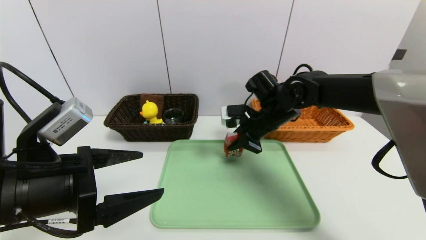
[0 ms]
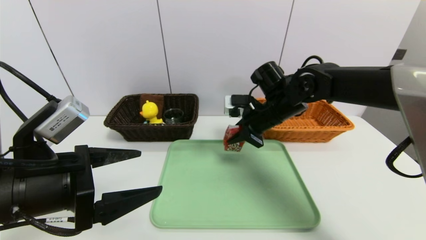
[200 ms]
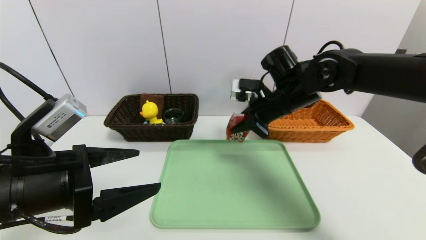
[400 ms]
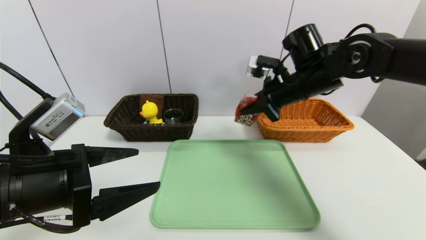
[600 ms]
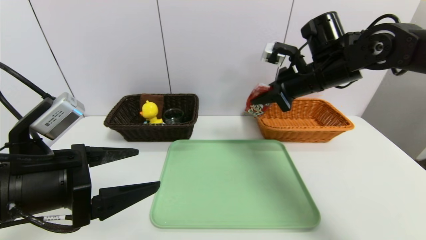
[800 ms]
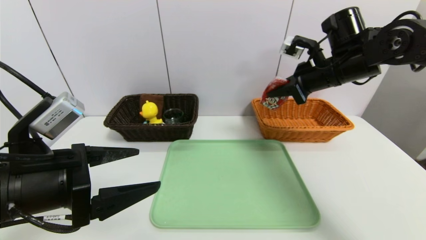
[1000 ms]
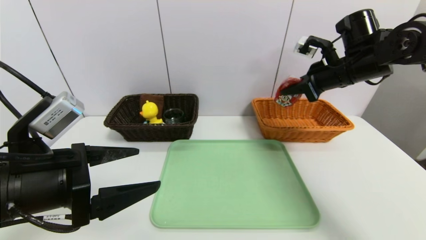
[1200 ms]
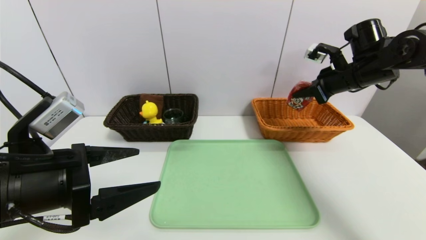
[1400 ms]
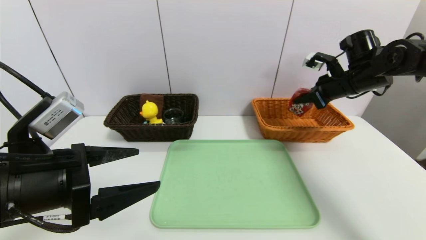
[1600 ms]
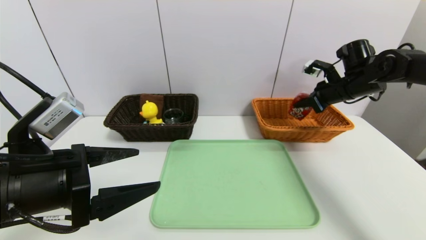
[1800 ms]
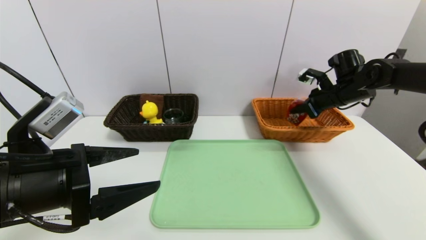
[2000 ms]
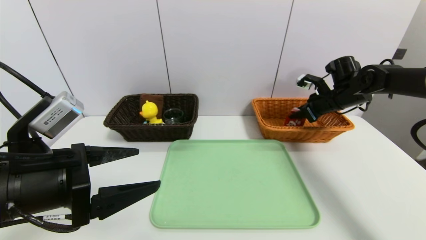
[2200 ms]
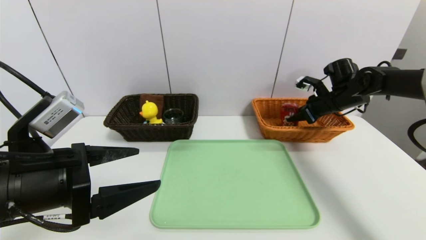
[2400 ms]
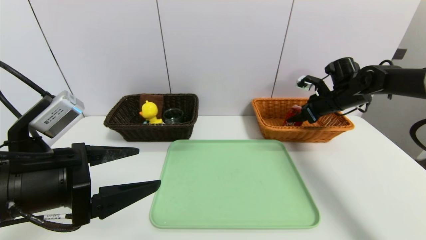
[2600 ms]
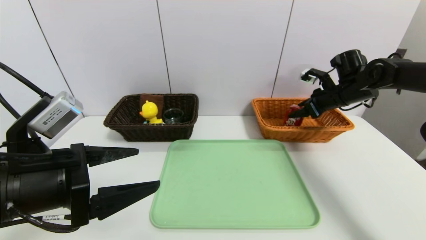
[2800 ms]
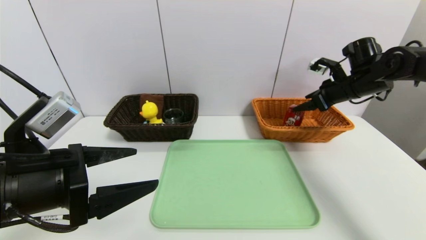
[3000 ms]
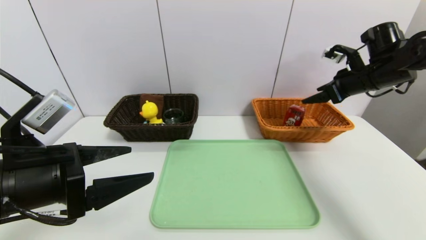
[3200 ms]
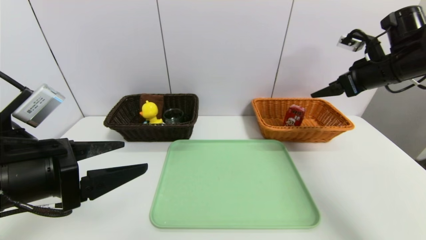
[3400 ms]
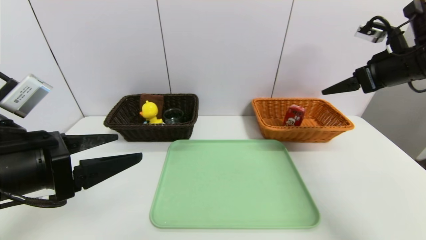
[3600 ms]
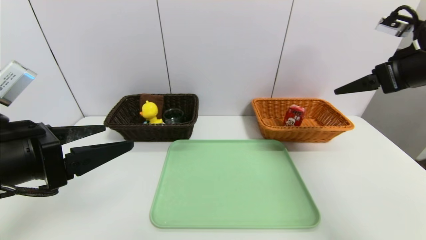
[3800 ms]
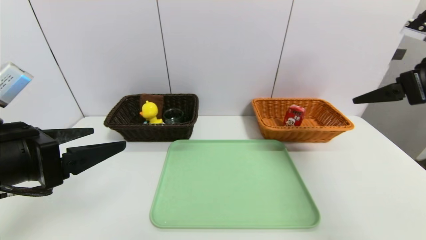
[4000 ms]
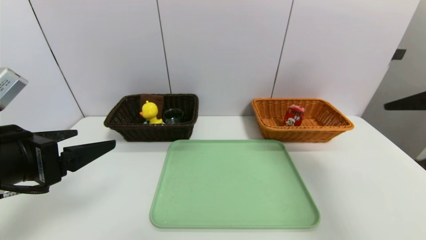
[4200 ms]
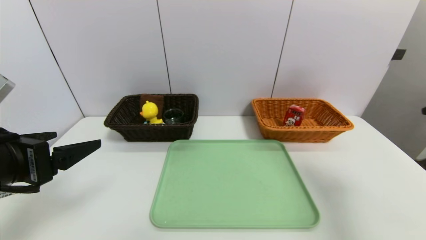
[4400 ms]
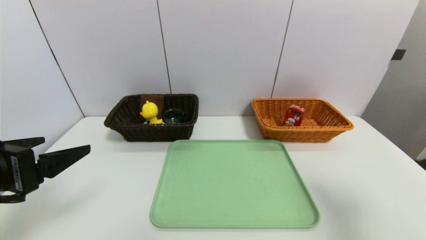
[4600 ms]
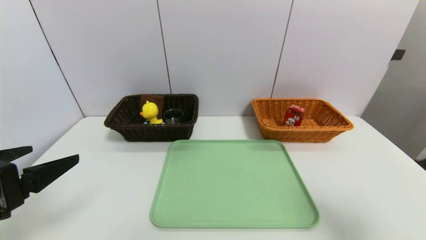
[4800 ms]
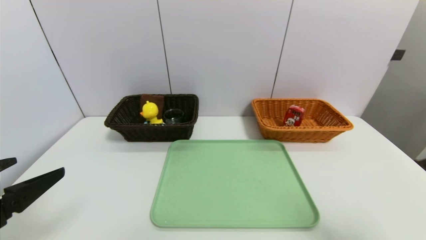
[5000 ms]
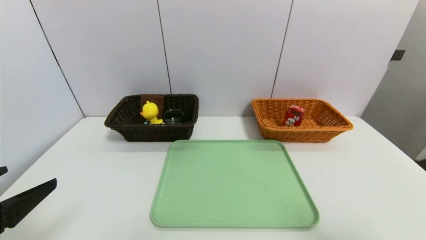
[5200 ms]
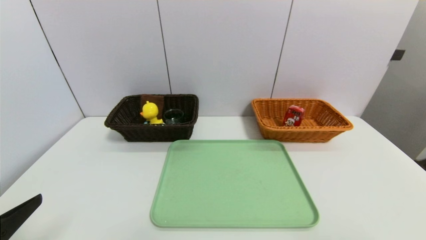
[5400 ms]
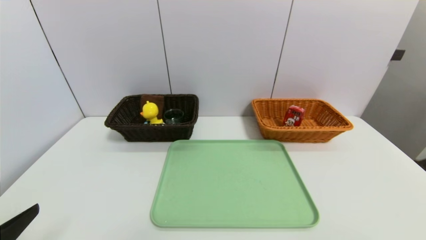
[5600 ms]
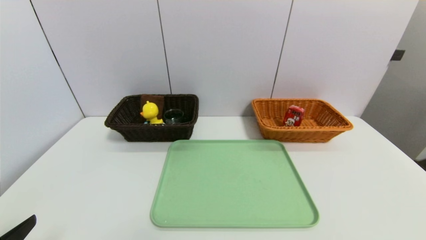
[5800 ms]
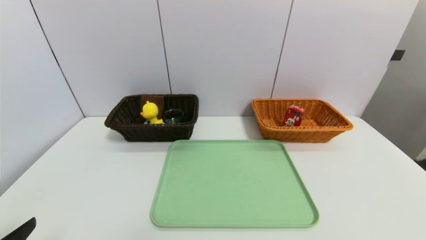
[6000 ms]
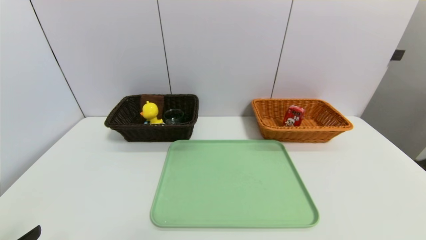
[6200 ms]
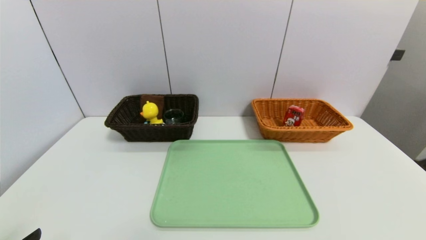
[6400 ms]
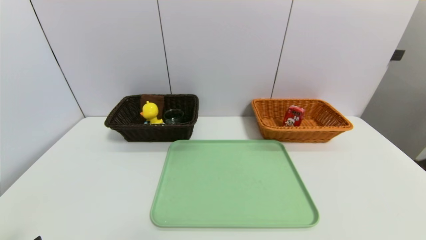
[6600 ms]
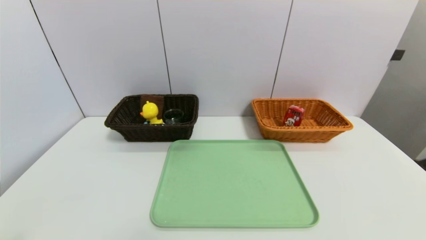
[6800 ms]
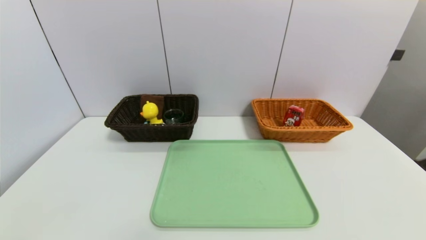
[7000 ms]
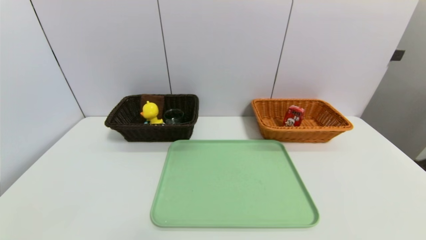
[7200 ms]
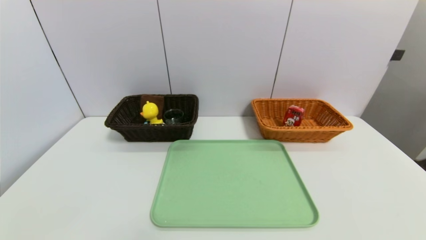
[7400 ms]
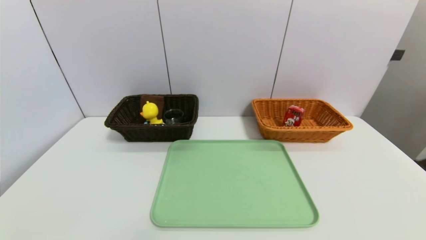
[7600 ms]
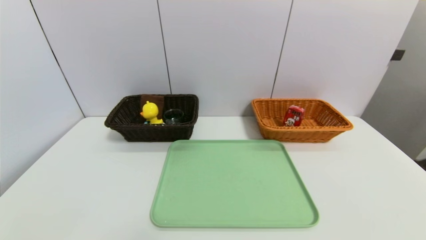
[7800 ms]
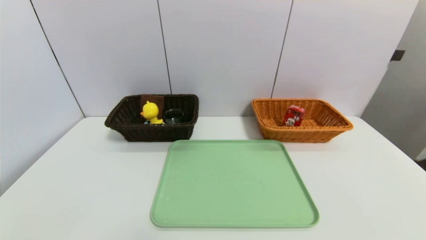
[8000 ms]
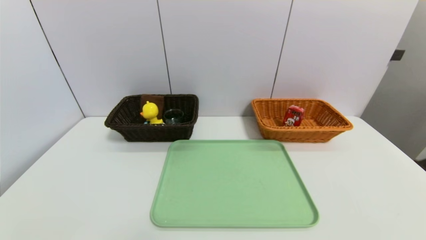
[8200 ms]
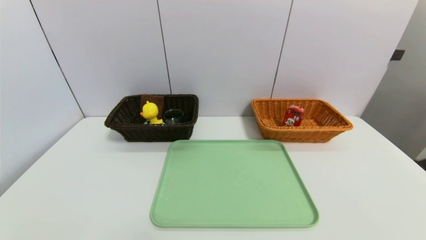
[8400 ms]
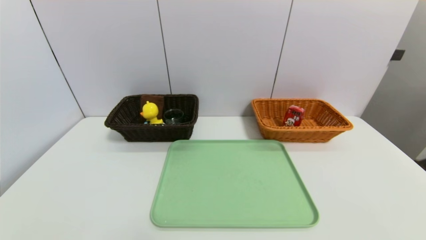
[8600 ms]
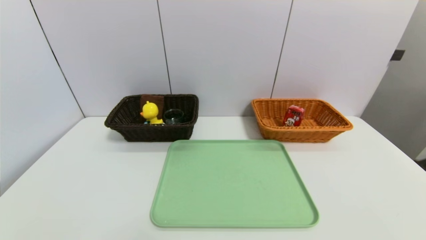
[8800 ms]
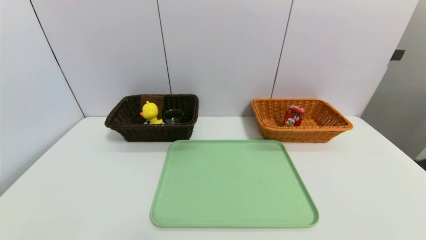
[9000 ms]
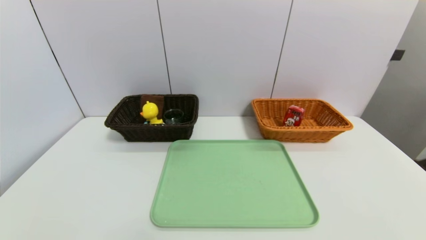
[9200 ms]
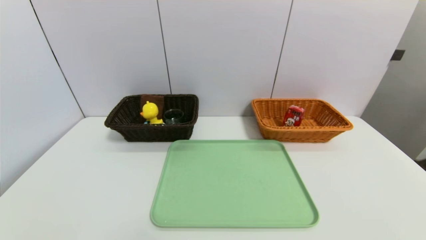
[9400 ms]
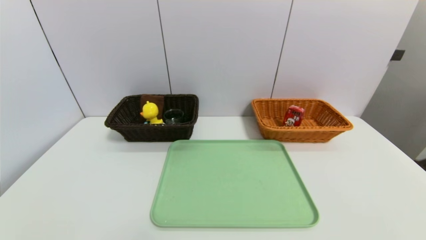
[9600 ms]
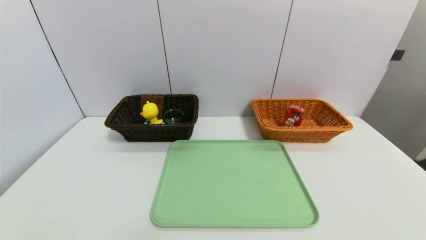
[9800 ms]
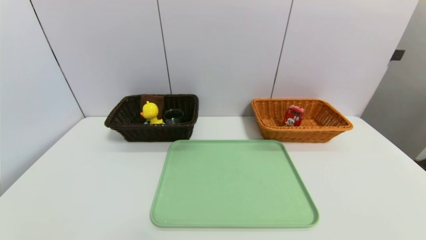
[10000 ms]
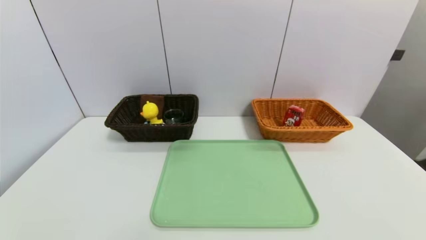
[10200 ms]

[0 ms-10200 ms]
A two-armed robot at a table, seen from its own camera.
Task of the whole recording: place the food in the right basket with the right gripper, and place the non food items in the left basket with the left gripper.
Step, 0 ms to 3000 ms: Grasp the milk and put it in the right basket.
0 ms to 1400 ms: The right gripper travels to the right and upward by approximately 20 cm.
1400 ms to 3000 ms: The right gripper opens.
3000 ms to 4400 ms: The right gripper is displaced backward by approximately 25 cm.
4400 ms to 5800 ms: The right gripper shifts roughly 20 cm backward and downward. The left gripper shifts approximately 15 cm backward and downward.

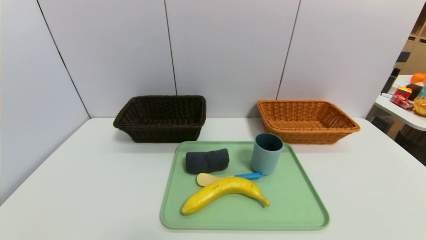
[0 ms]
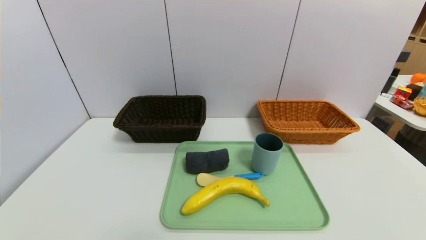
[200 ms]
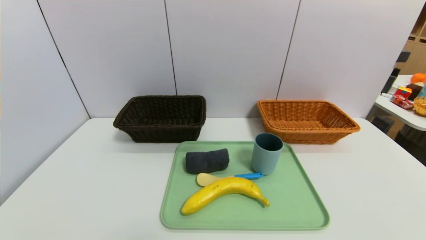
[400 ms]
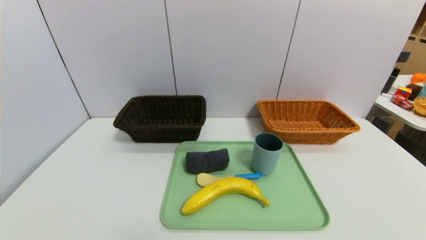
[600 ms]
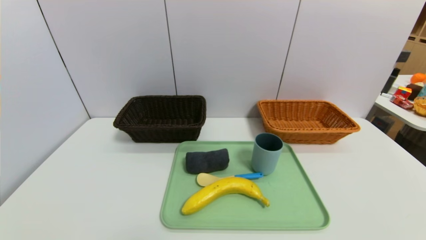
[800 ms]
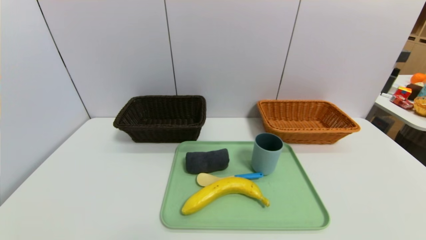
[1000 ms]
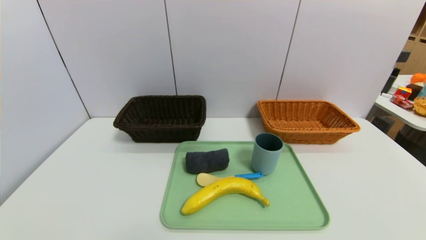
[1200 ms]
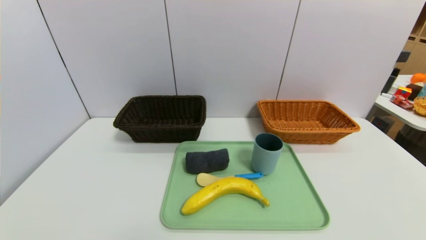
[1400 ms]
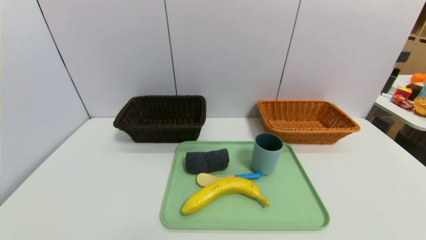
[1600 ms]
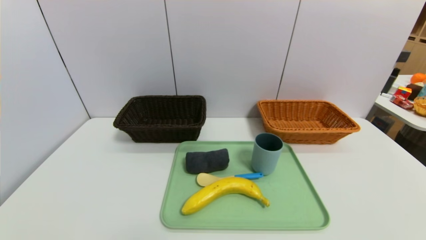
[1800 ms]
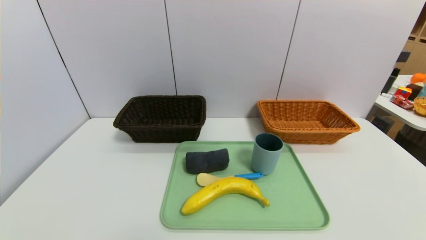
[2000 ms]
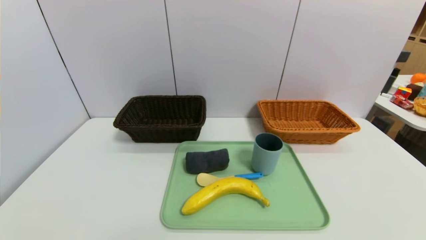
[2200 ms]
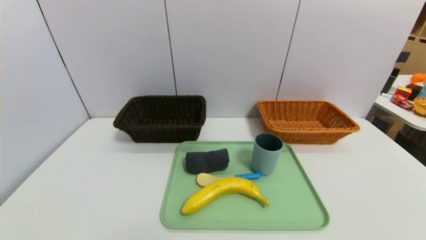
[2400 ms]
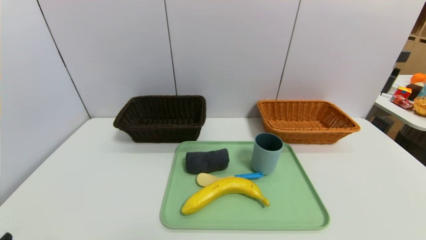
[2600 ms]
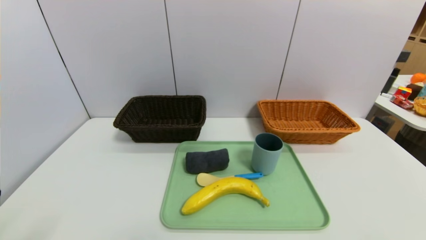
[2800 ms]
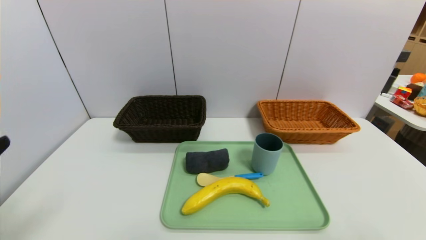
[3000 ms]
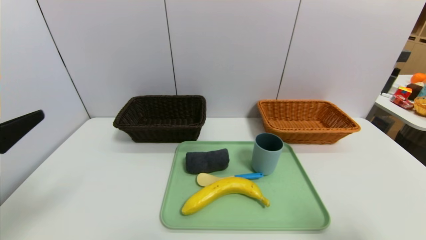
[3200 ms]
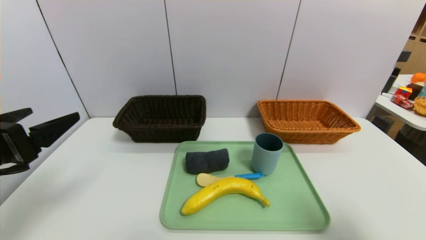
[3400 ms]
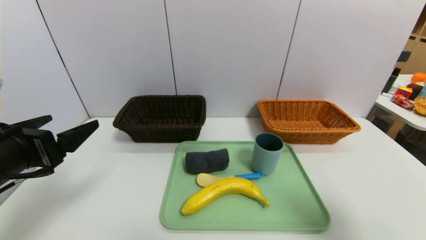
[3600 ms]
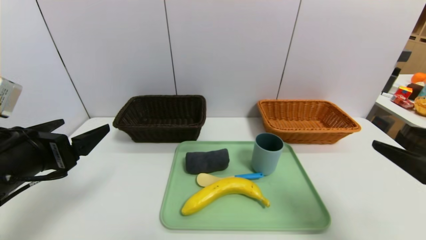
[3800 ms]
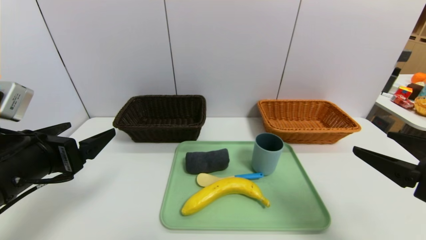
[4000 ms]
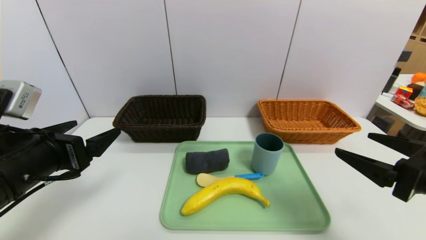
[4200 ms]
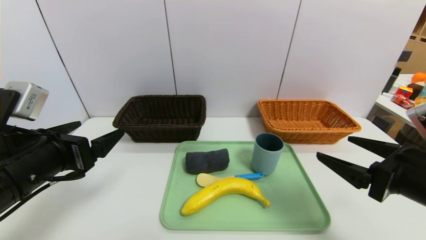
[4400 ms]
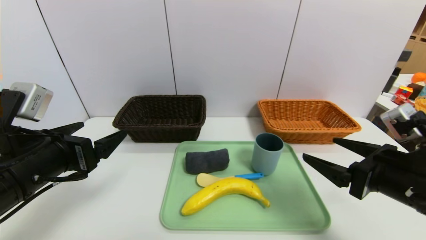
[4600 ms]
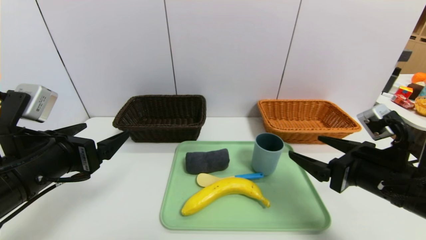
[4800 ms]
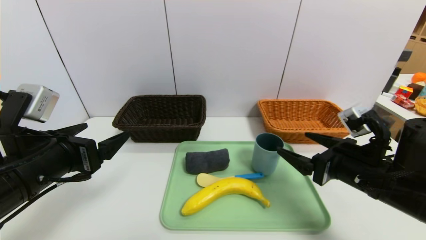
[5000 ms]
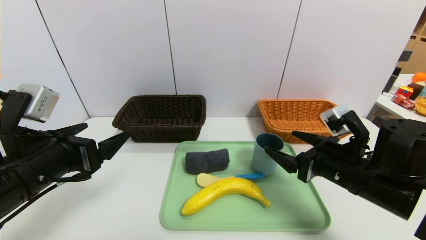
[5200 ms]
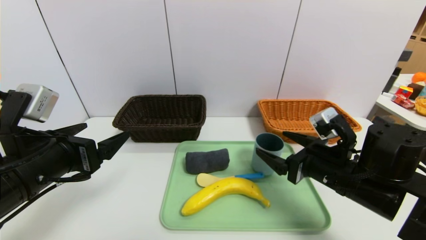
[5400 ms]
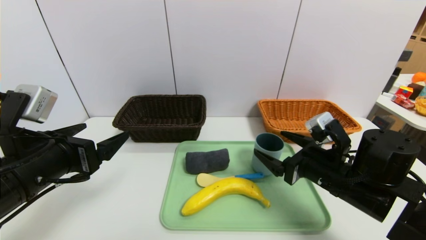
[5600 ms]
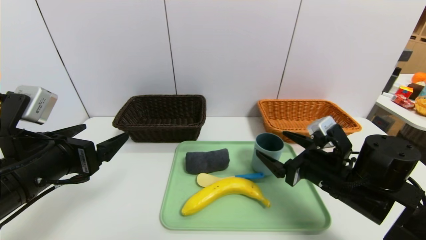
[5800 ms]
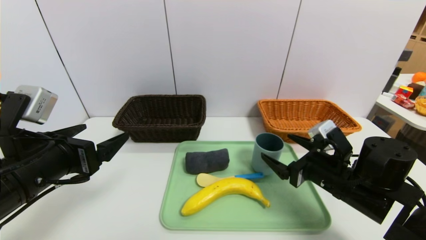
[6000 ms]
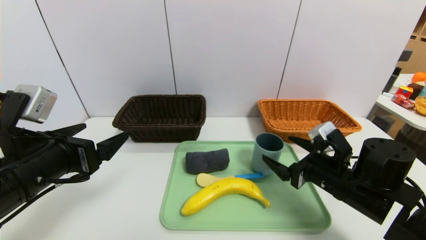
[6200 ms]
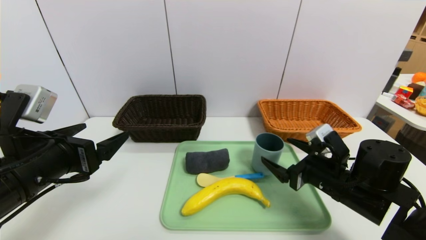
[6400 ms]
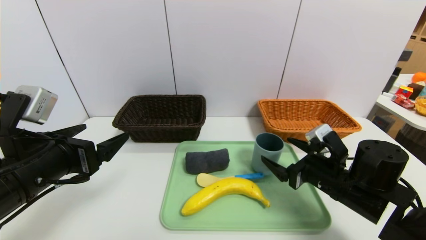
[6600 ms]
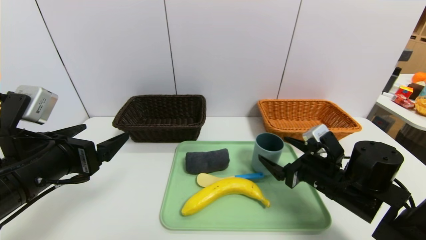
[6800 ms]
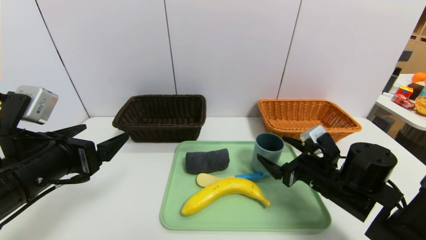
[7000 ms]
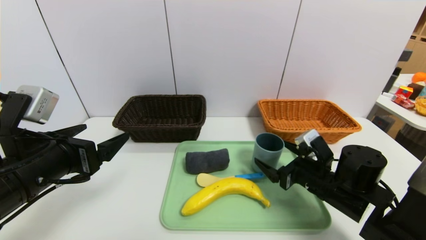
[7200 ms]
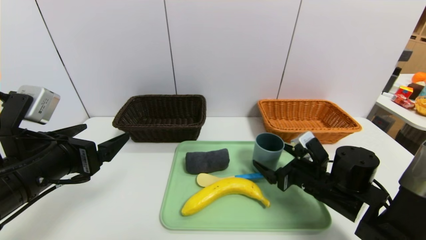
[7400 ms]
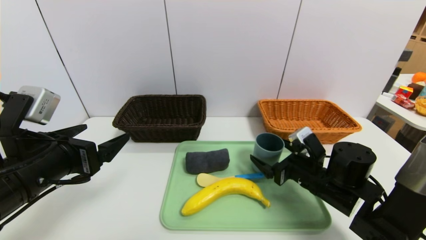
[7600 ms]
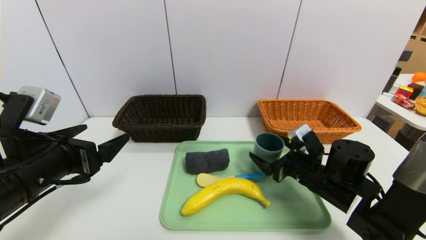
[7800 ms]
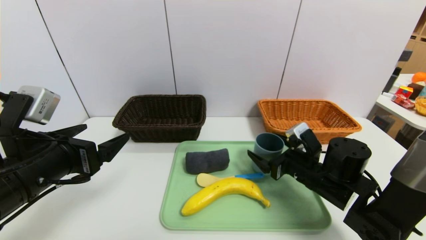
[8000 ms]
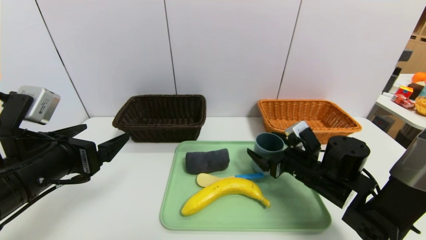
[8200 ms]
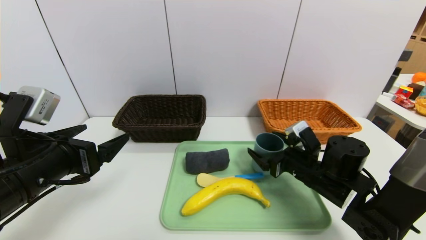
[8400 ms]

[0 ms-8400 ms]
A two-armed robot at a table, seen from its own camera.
Task of the whole recording: place the food in the right basket with the right gripper, and place the non food items in the left basket with the left gripper.
0 ms to 1400 ms: The two grippers keep their place.
2800 ms to 4200 ms: Both grippers travel together forward, approximately 15 cm.
4200 ms to 5600 ms: The right gripper goes some 15 cm forward, to the left and downward.
5600 ms to 7000 ms: The grippers stay close to where they were, moving slightly.
7000 ms to 8400 ms: There are only small adjustments of the grippers.
